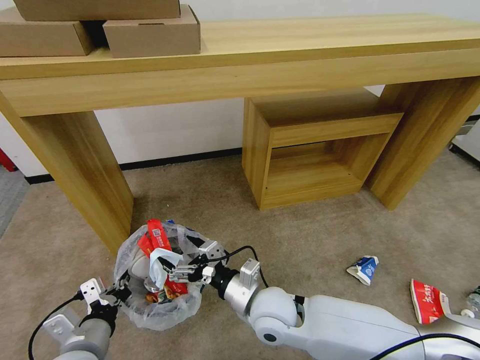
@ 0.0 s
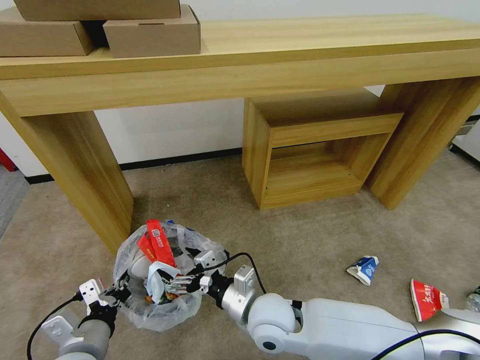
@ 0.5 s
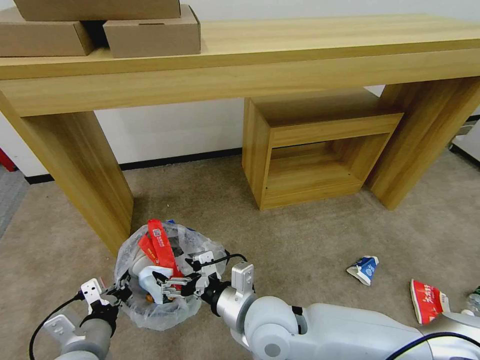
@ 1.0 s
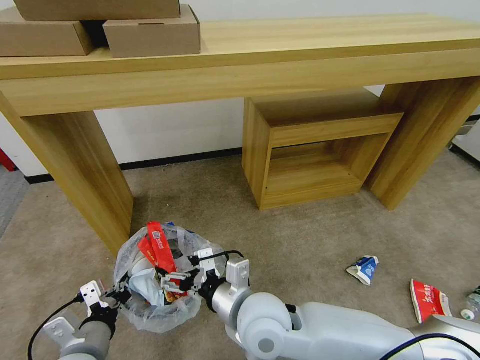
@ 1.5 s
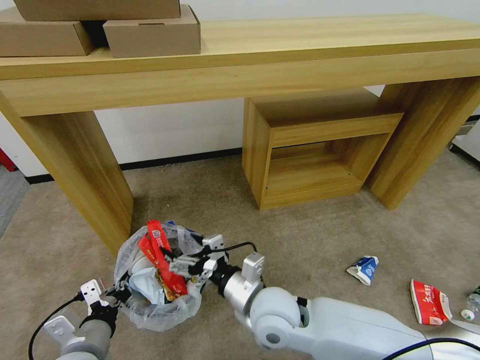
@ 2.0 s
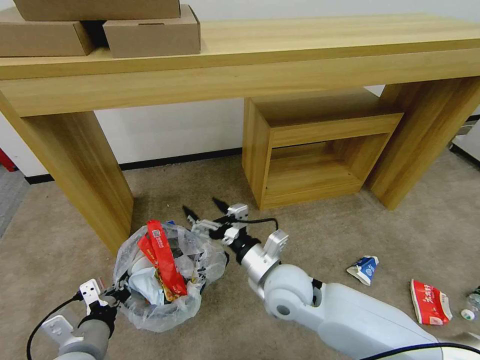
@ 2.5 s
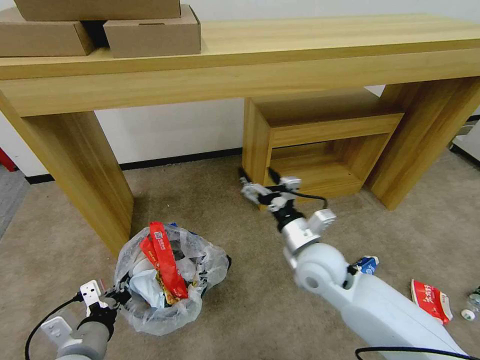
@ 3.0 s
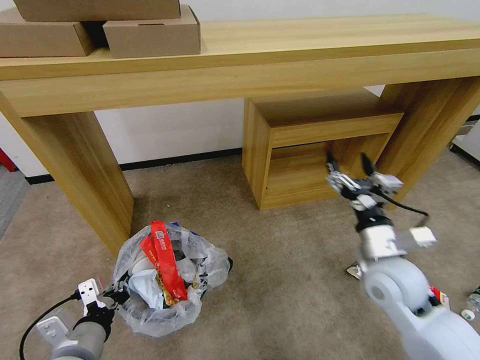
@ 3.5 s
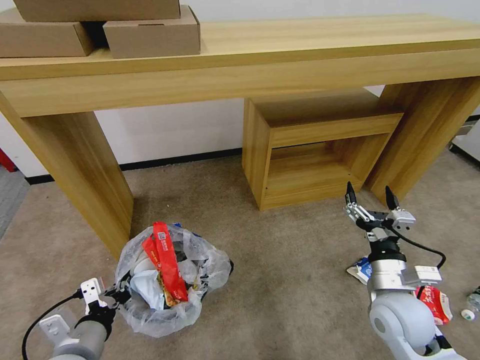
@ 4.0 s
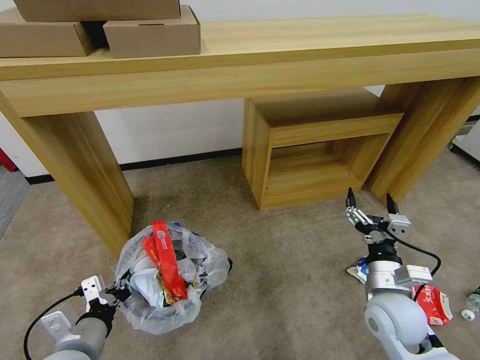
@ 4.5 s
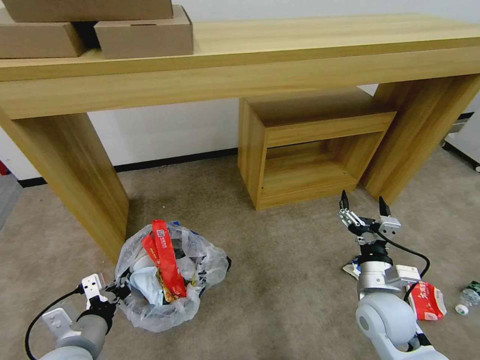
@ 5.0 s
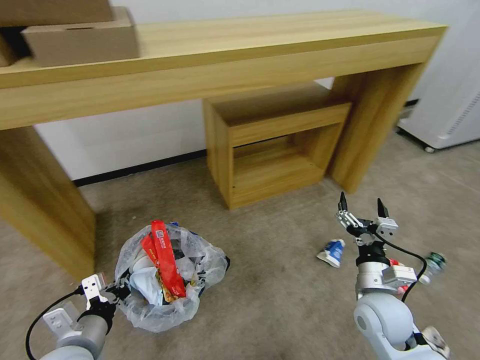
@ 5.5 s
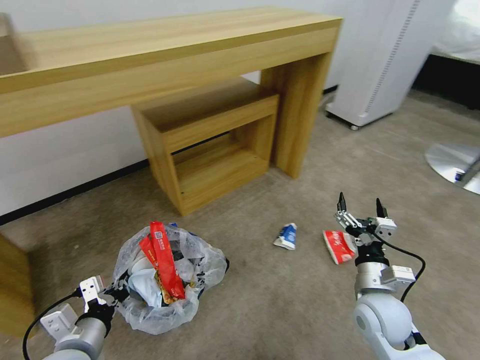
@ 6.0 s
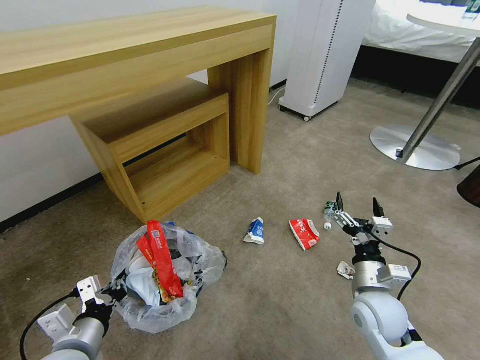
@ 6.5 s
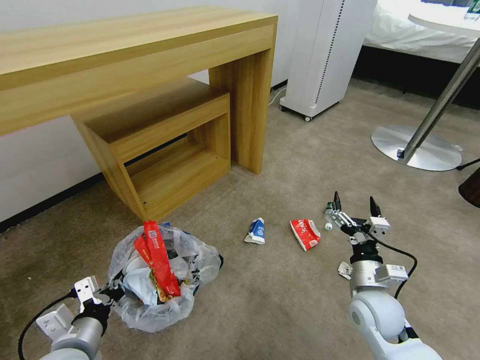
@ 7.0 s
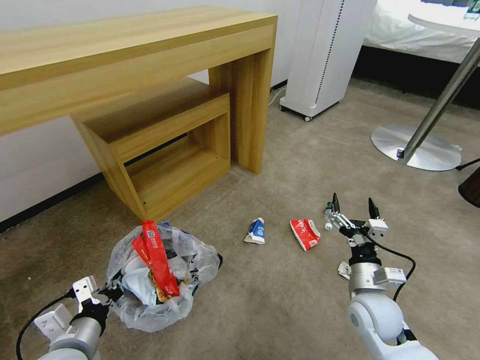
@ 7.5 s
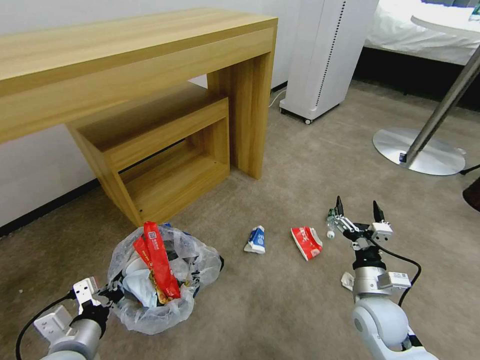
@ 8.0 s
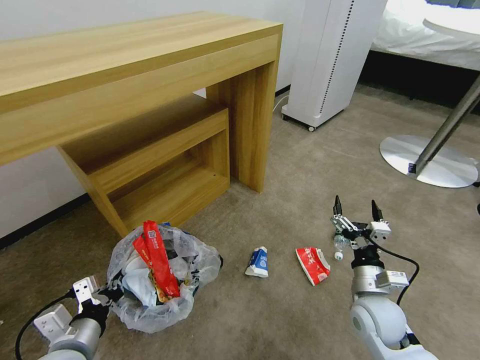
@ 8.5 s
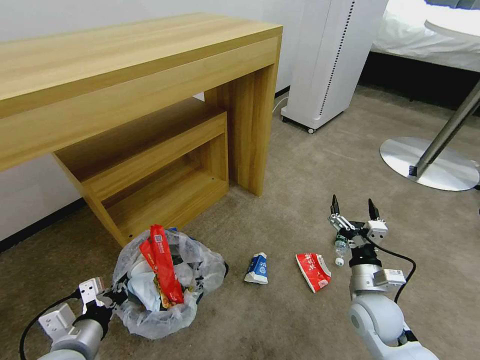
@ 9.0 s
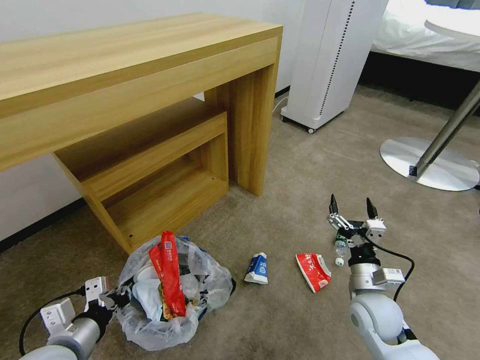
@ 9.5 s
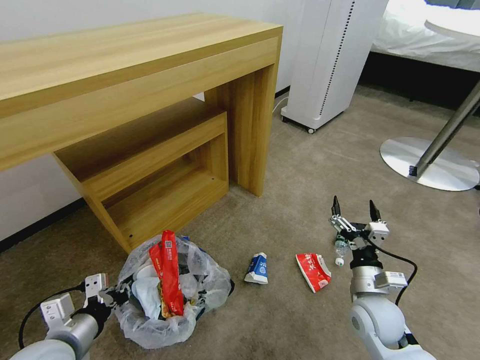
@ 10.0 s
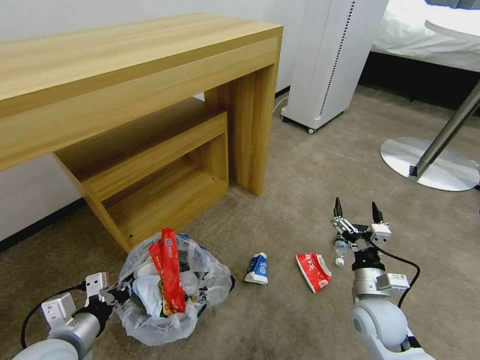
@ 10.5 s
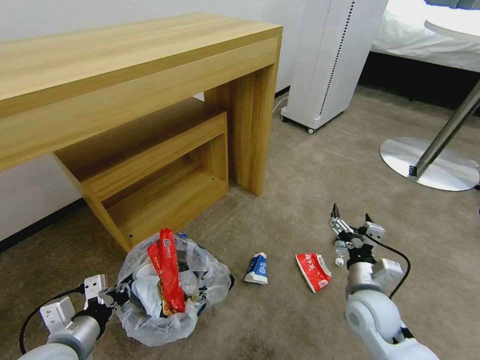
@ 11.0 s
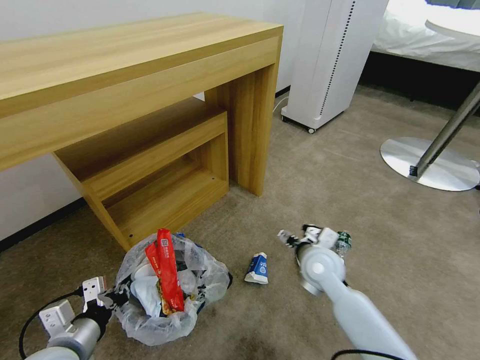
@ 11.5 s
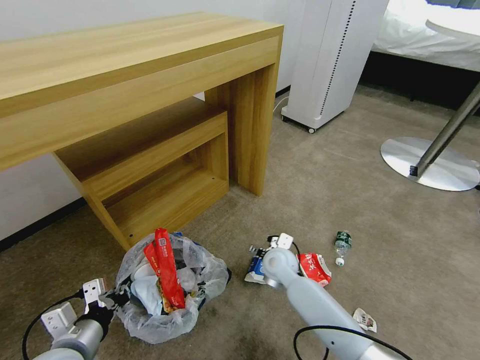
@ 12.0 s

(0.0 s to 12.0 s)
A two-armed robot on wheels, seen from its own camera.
Task of the whole recording: Pick up the trash bin and place the garbage on the floor into it.
2.0 s - 4.0 s: The right gripper heads to the right, covering some 25 cm.
10.0 s - 12.0 s: The right gripper moves to the left and forward, roughly 25 cm.

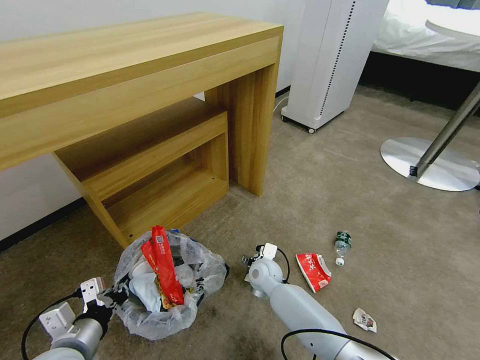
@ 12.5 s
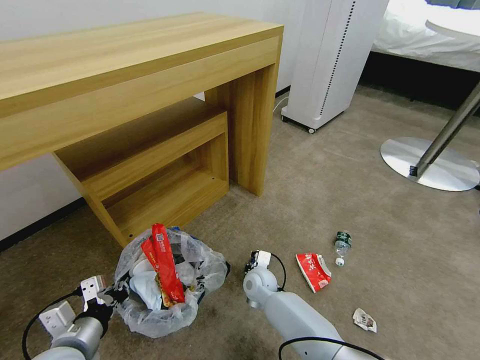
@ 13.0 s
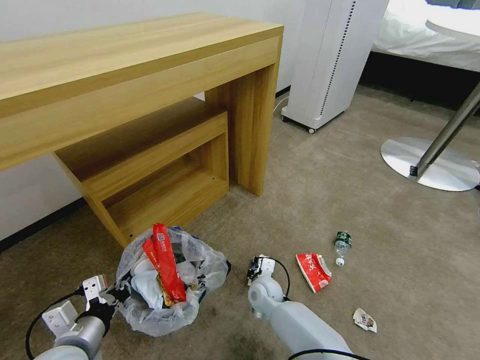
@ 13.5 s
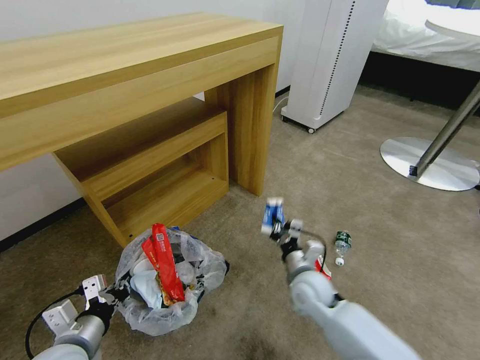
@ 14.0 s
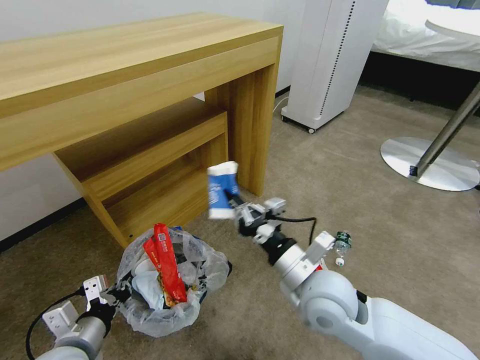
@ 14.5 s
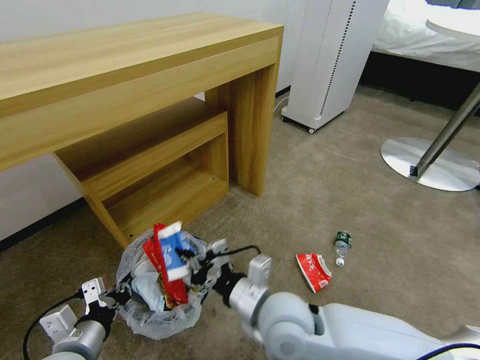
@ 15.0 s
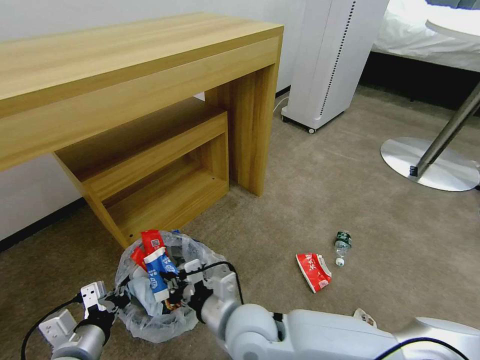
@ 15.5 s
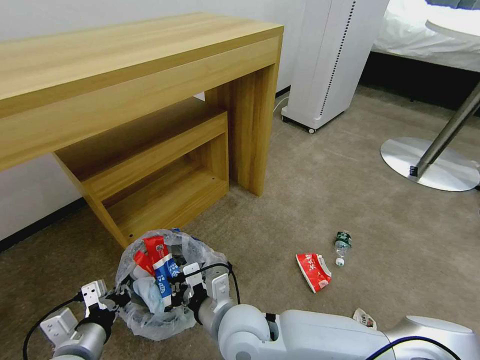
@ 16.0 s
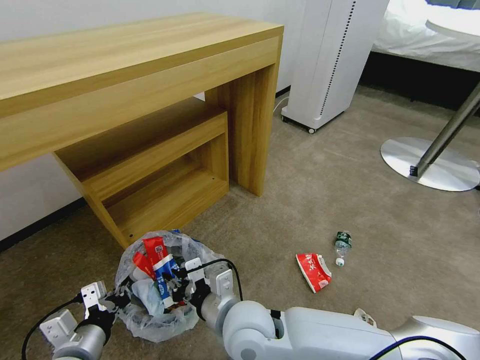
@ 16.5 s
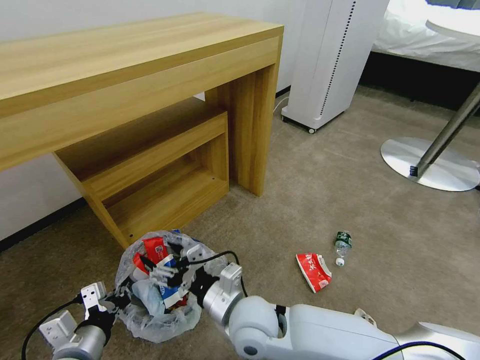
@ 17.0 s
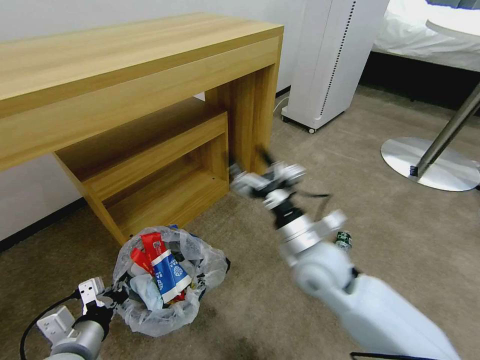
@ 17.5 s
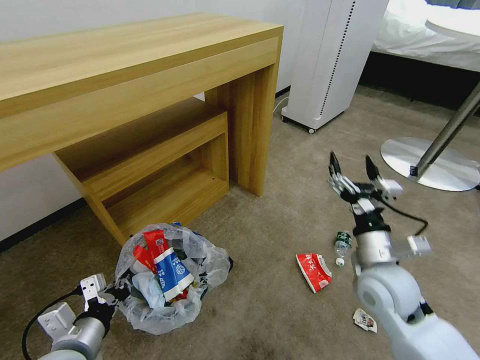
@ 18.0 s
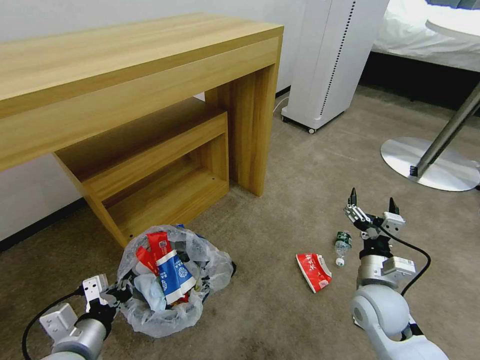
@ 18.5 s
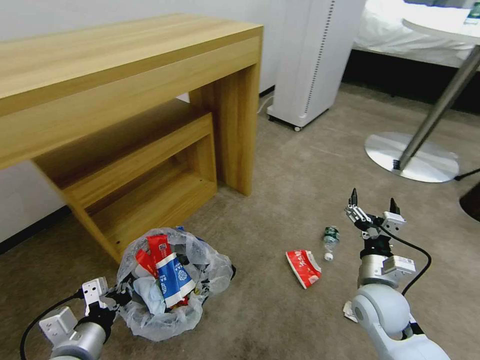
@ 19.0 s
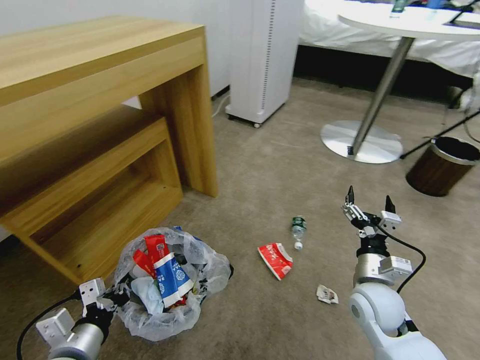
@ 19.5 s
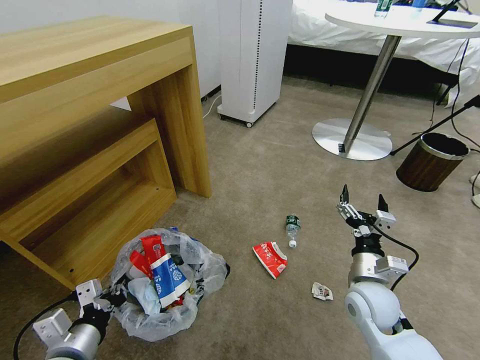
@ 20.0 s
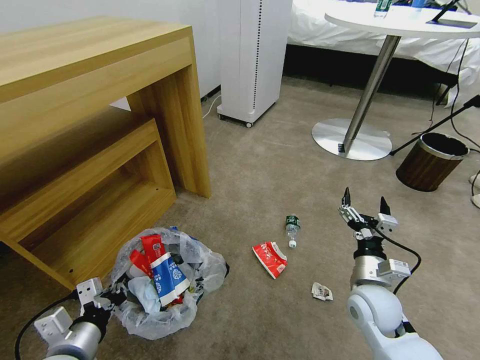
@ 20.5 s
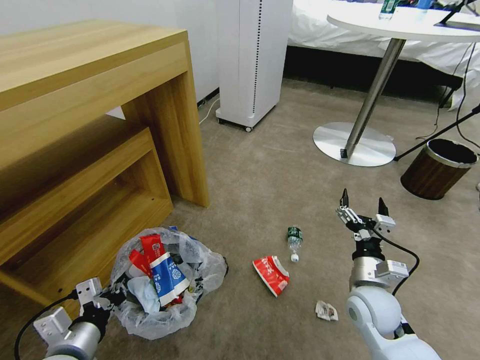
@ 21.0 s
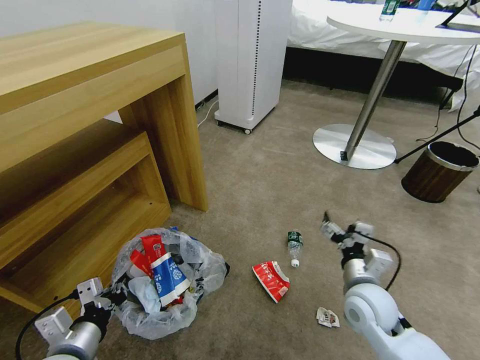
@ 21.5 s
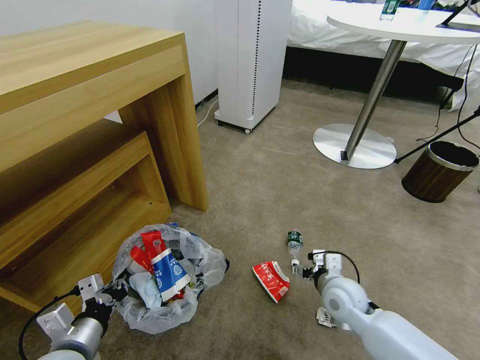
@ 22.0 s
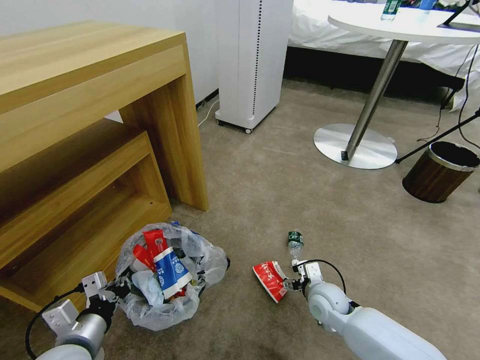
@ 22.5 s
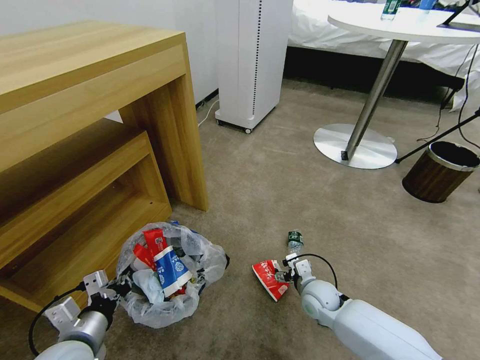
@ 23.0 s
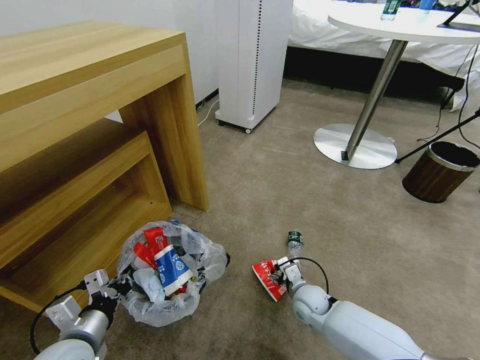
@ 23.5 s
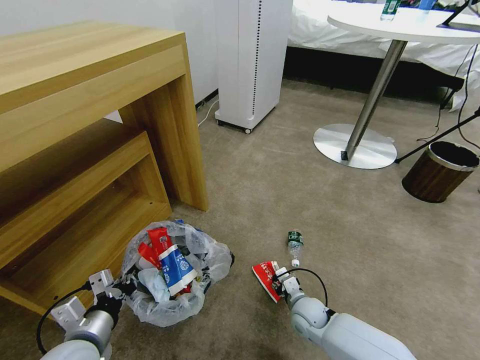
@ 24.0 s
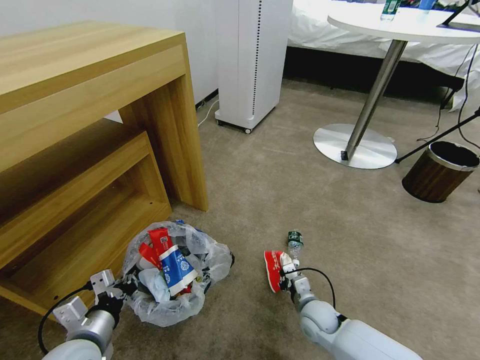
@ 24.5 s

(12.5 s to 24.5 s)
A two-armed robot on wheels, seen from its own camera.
Task of the whole recording: Pick up the trash bin and place the garbage on the floor into it.
12.5 s - 14.5 s: The right gripper heads upward and backward, covering roughly 25 cm, and closes up.
14.5 s - 16.5 s: The right gripper heads to the left, covering about 15 cm.
16.5 s - 18.5 s: The right gripper goes some 25 cm to the right, and opens.
20.5 s - 22.5 s: The right gripper shifts approximately 10 cm downward and to the left.
22.5 s - 24.5 s: The right gripper travels downward by about 5 cm, and closes its fingers.

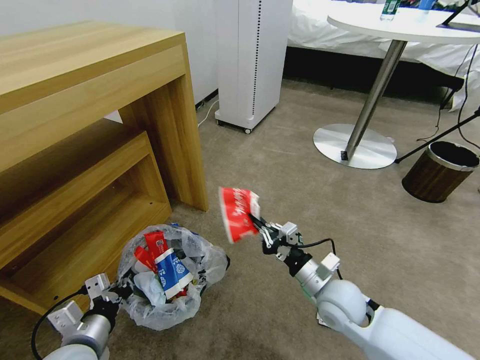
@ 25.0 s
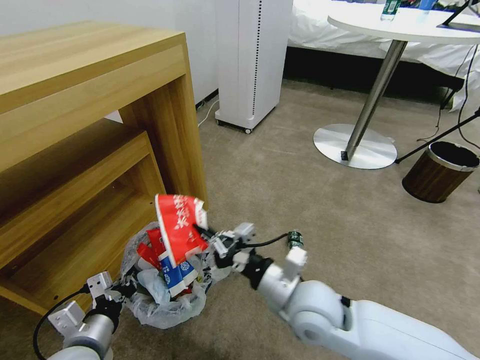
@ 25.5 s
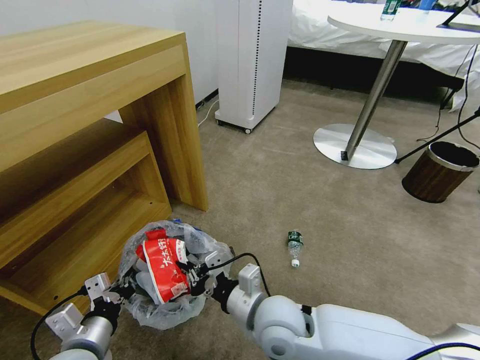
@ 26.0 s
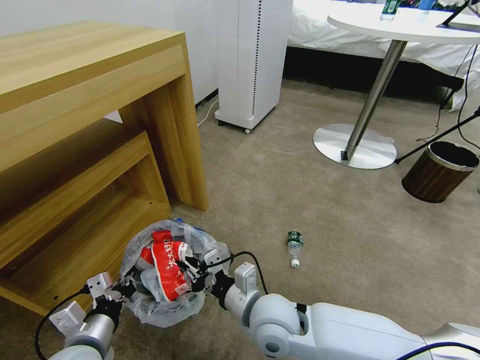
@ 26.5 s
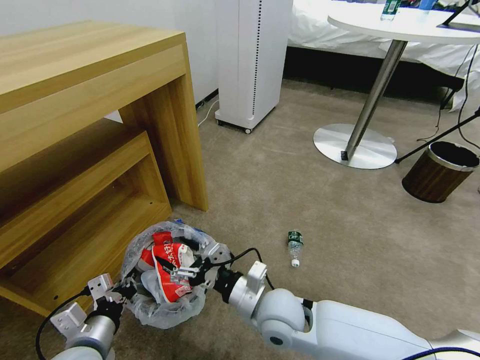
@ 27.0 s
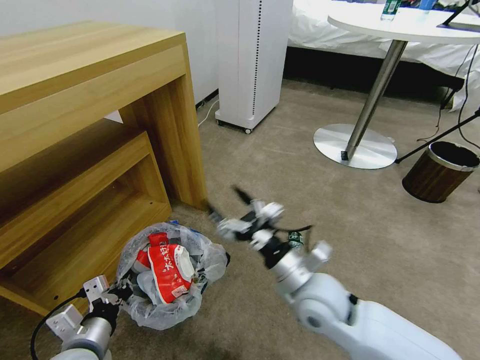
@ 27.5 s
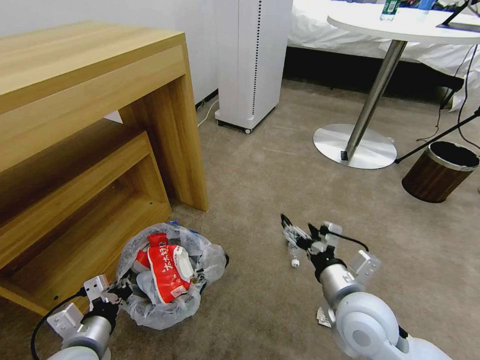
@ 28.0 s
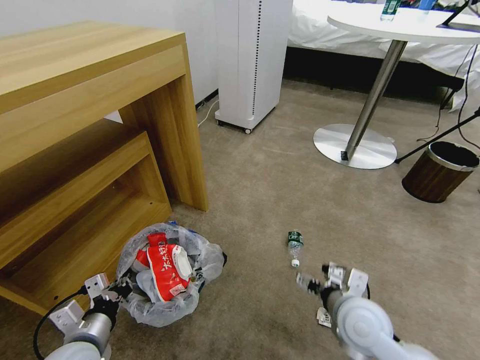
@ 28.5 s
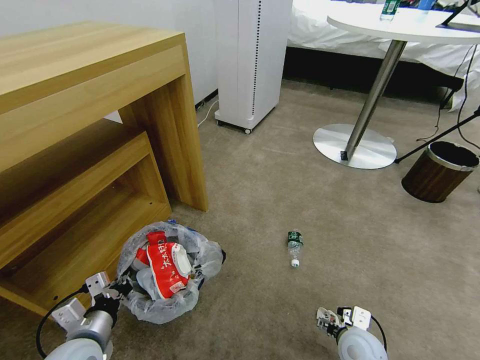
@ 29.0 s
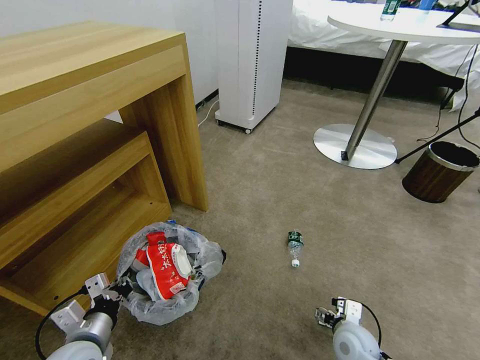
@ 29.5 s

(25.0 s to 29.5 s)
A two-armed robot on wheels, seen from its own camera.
Task of the whole recording: Pick up the trash bin and place the garbage on the floor into it.
25.0 s - 27.0 s: The right gripper moves to the left, roughly 15 cm, and opens.
27.0 s - 29.5 s: The right gripper moves to the right and downward, roughly 25 cm.
